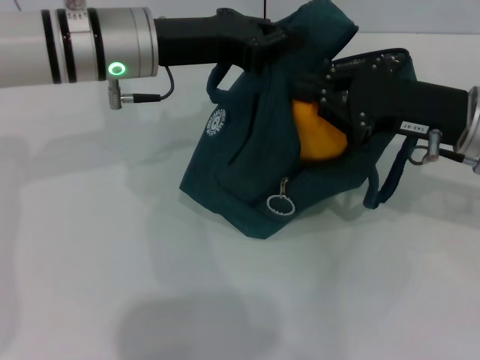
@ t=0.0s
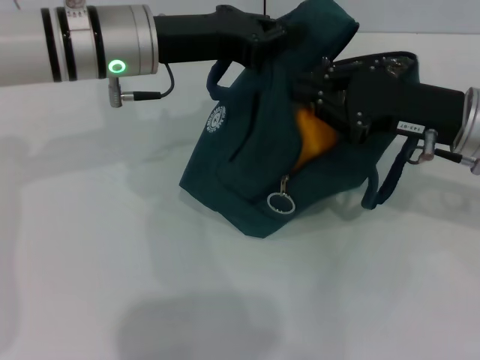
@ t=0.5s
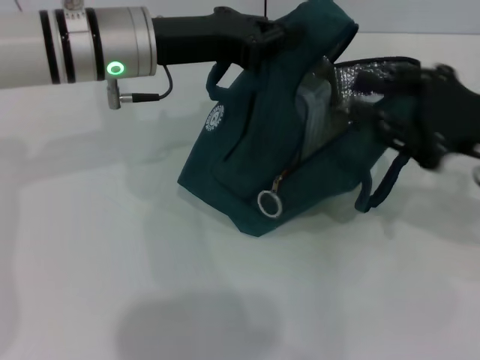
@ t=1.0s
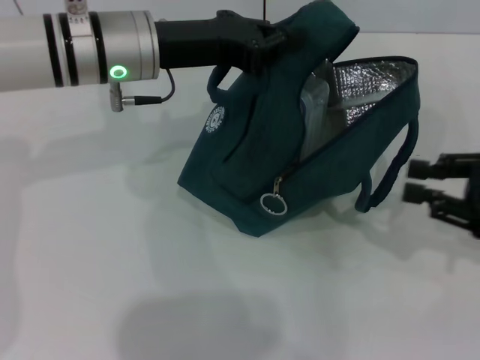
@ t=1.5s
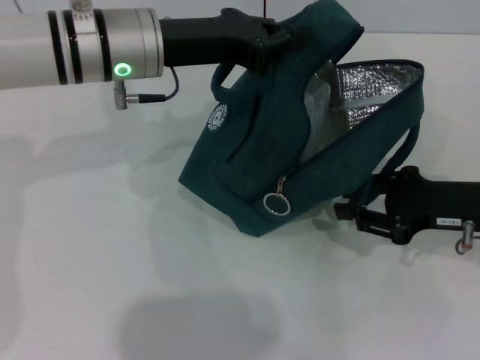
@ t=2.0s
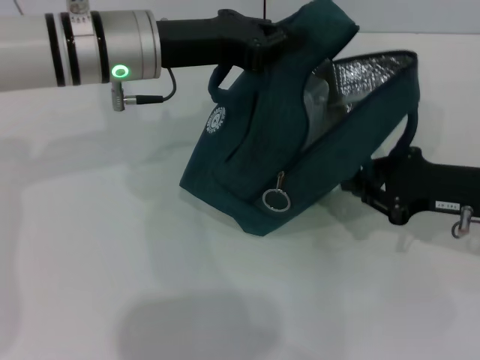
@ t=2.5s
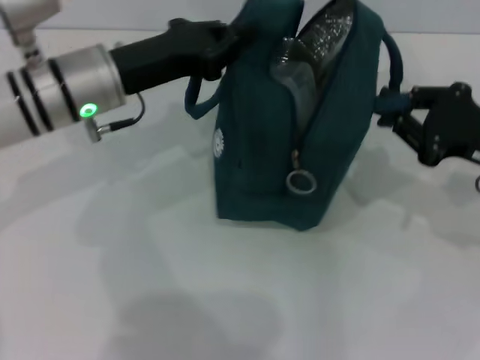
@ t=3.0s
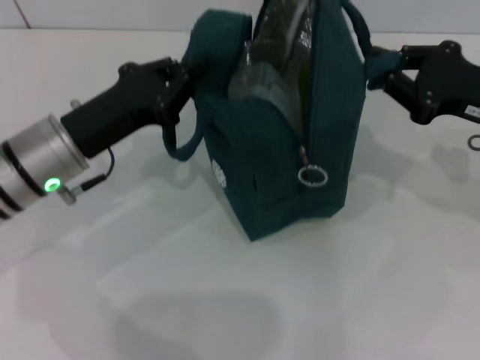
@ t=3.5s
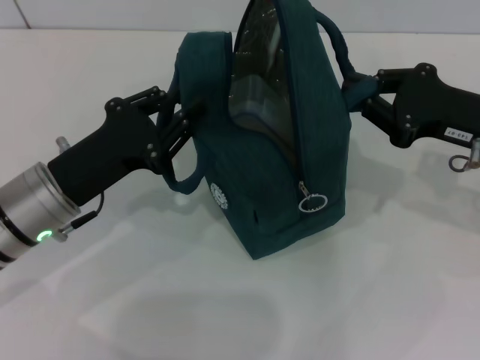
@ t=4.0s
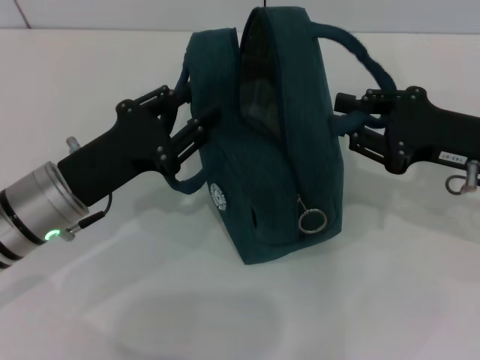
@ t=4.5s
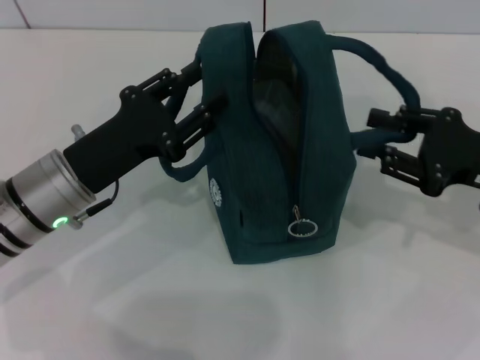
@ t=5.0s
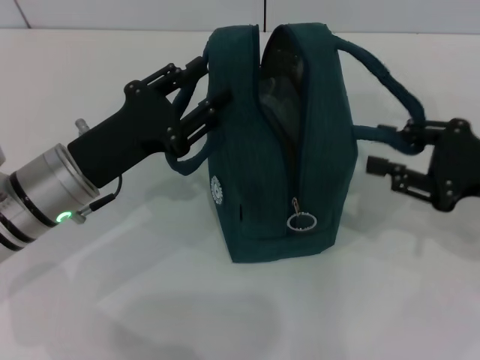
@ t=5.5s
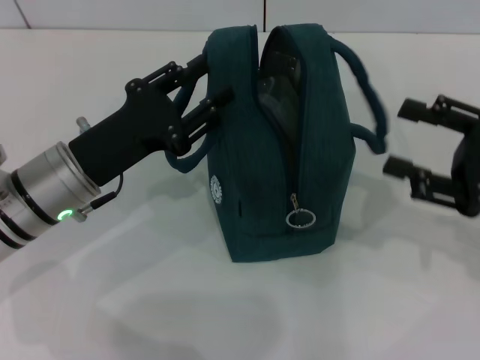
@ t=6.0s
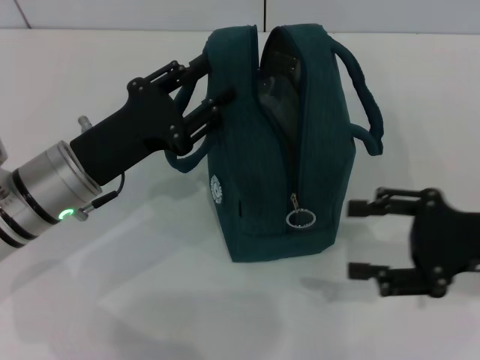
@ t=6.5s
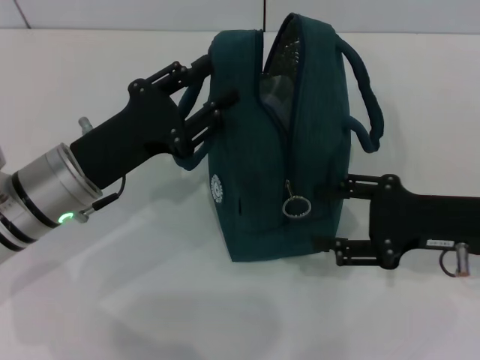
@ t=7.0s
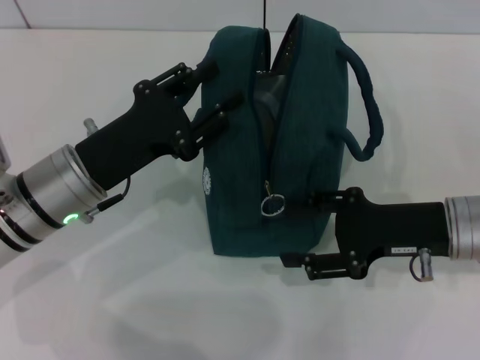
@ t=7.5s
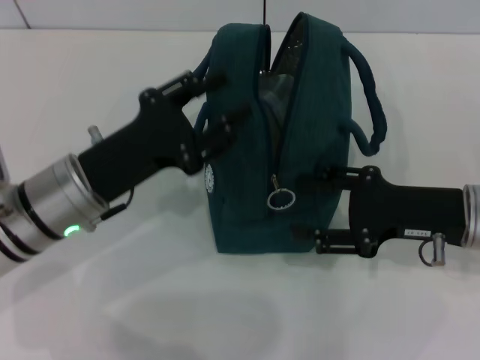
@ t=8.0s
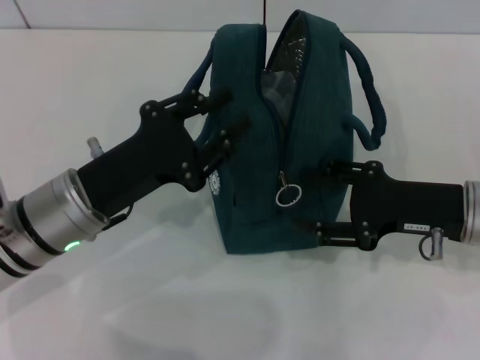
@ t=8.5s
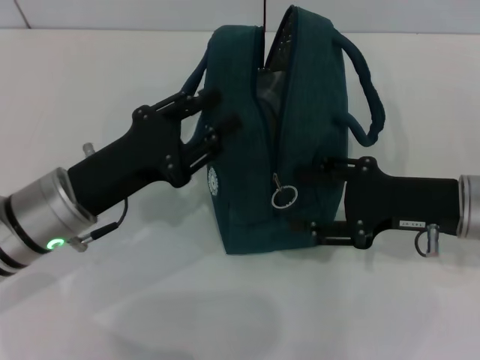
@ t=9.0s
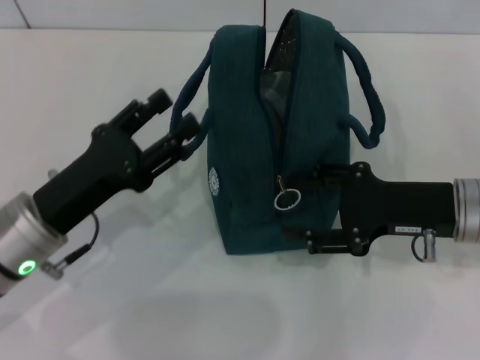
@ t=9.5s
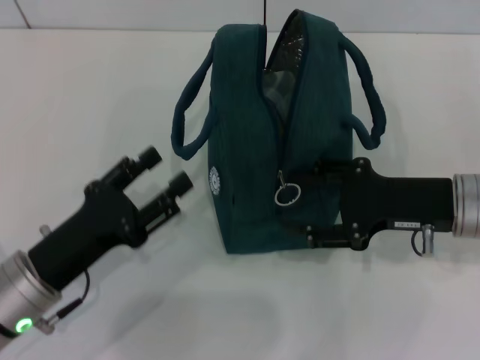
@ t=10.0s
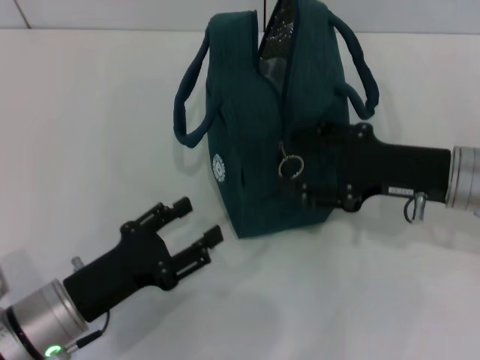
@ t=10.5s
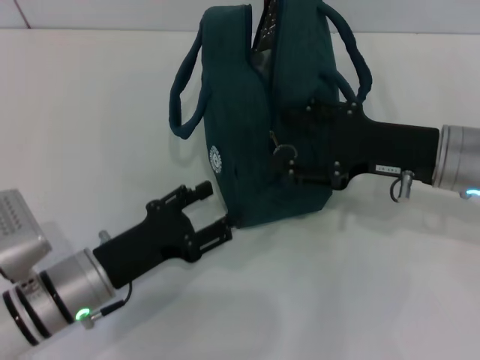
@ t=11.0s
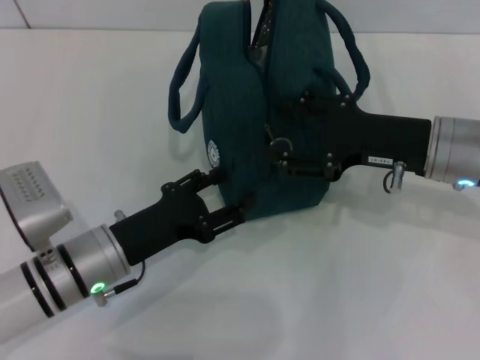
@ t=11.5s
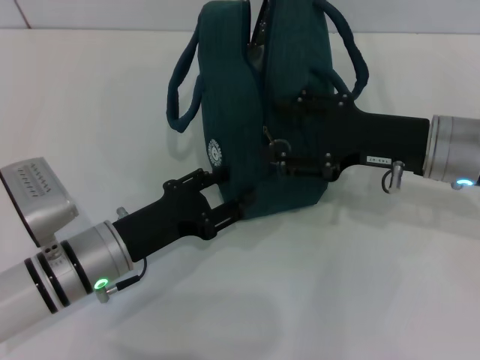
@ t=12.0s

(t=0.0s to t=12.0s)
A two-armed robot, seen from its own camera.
Step, t=1.5s - t=4.5s: Hold the lunch bag with your right hand.
t=0.0s - t=2.0s: The right gripper travels downward by about 5 cm.
t=2.0s - t=4.0s: The left gripper shifts roughly 15 cm backward, downward and to the left.
t=4.0s - t=6.0s: The right gripper shifts approximately 5 cm backward, and opens its fingers. The left gripper opens.
t=6.0s - t=8.0s: The right gripper shifts about 5 cm to the left.
t=8.0s - t=10.0s: The left gripper travels backward by approximately 10 cm.
t=10.0s - t=12.0s: The left gripper goes approximately 5 cm forward.

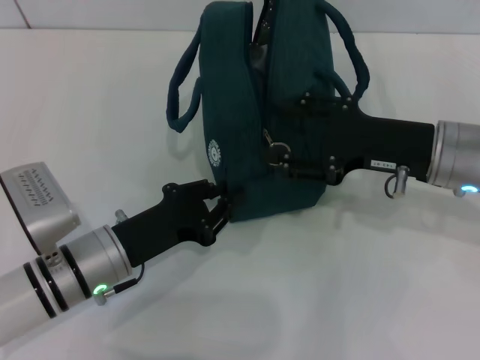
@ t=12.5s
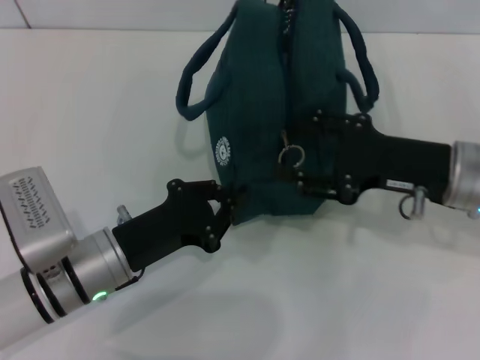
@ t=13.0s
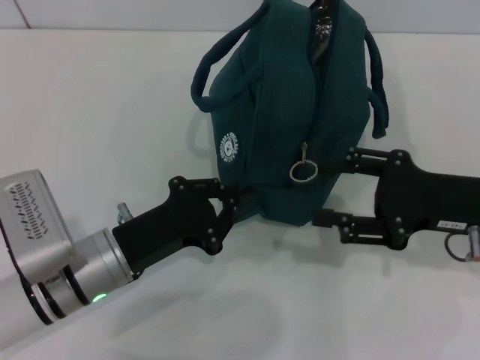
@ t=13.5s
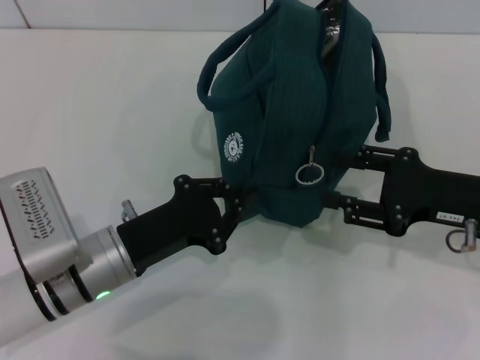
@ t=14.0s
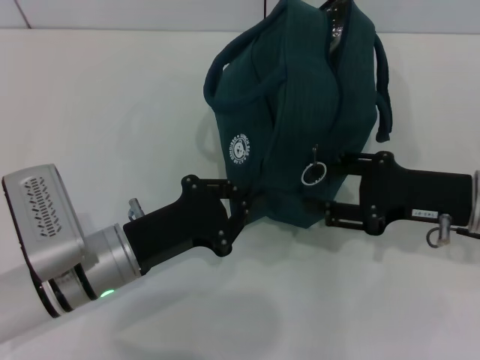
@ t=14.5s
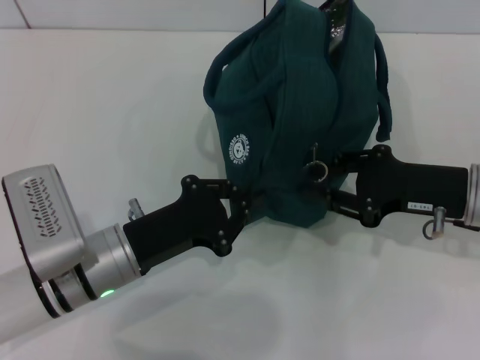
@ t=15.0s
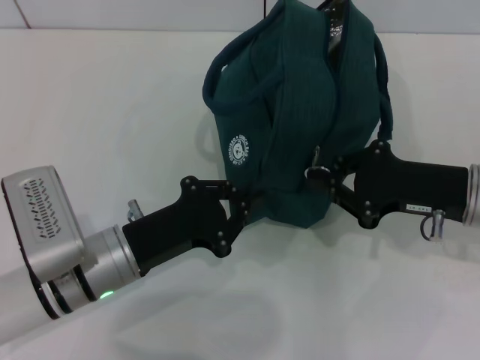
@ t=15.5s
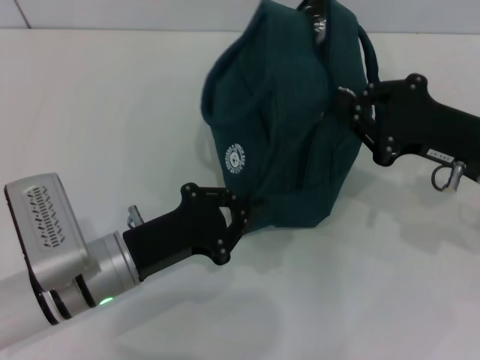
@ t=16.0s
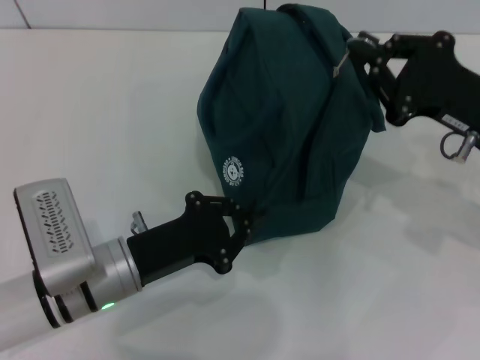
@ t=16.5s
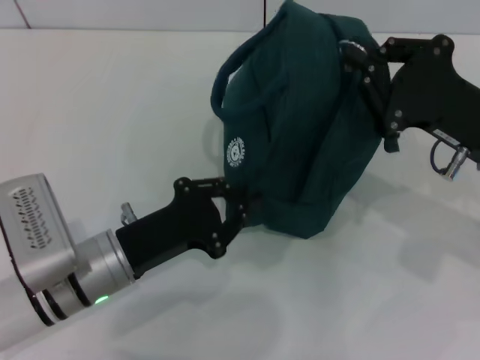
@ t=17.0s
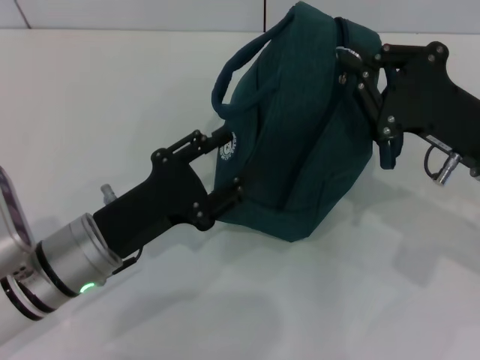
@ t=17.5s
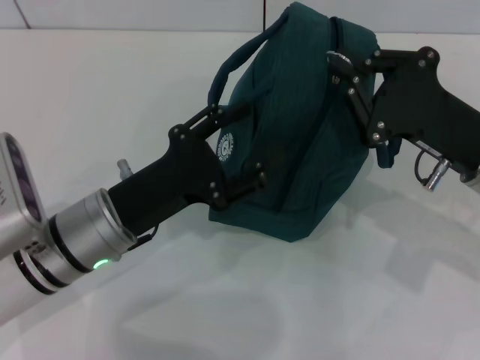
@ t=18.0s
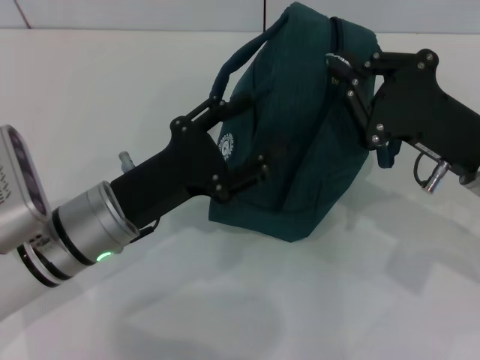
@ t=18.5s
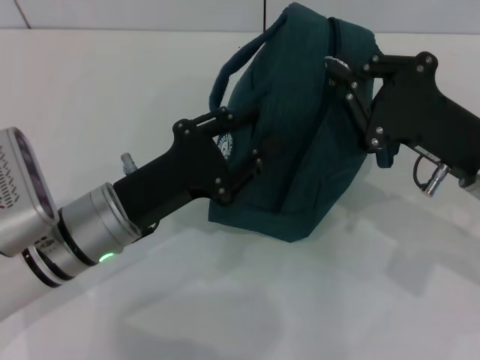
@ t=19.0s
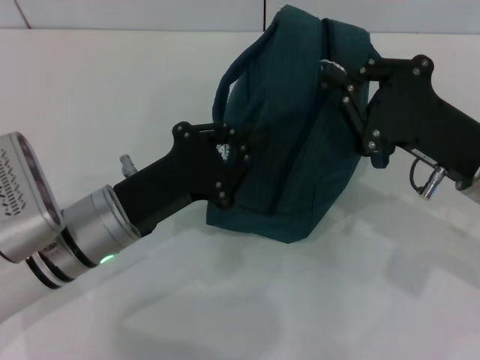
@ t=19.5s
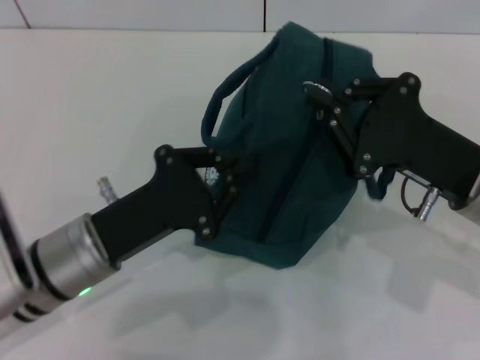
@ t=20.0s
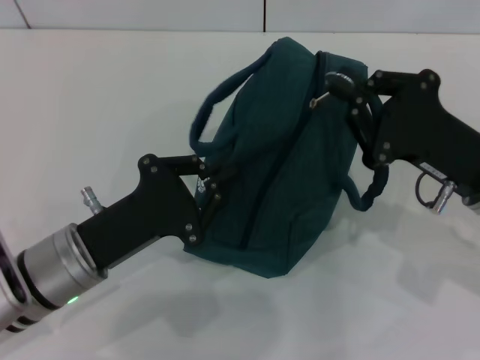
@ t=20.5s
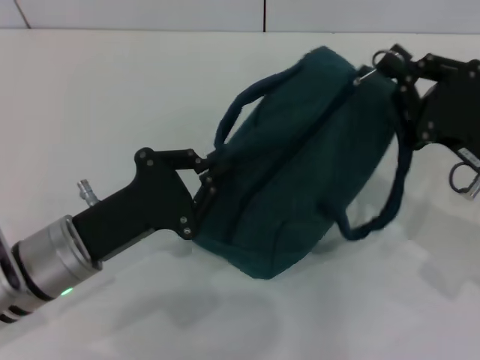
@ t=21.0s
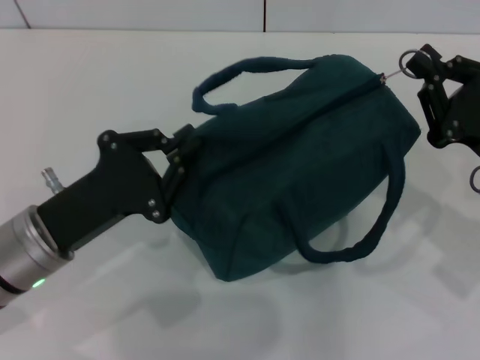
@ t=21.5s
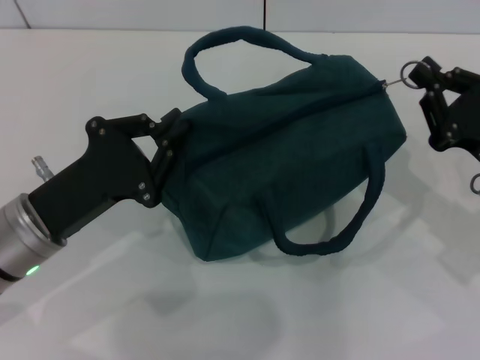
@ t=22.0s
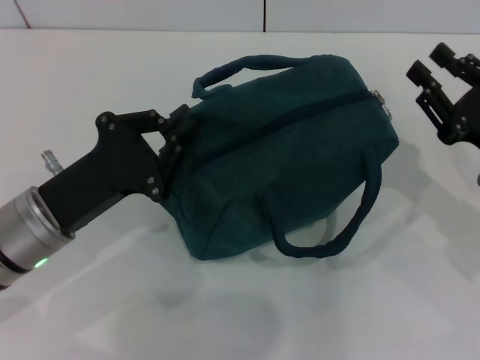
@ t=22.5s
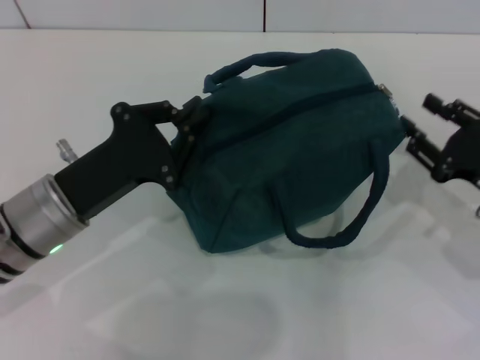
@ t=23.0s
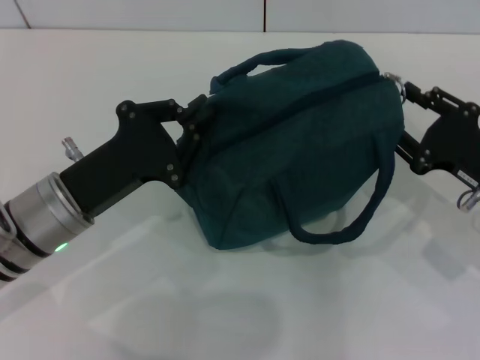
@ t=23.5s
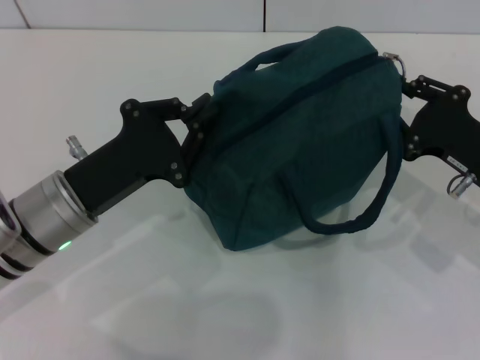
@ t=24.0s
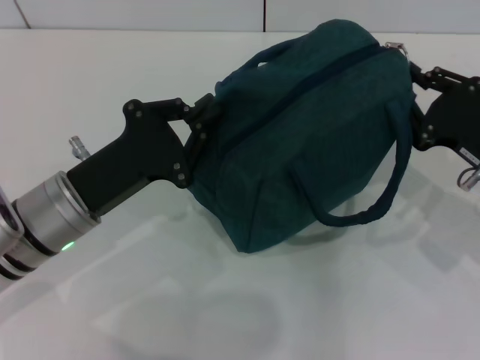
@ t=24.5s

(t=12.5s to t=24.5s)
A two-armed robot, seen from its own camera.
t=12.5s - t=14.5s: The right gripper moves approximately 5 cm. The left gripper closes its fingers.
t=14.5s - t=16.5s: The right gripper closes.
t=16.5s - t=18.5s: The left gripper opens its fingers.
t=18.5s - t=20.5s: The left gripper closes.
t=20.5s - t=22.5s: The right gripper moves to the right, about 5 cm.
t=22.5s - t=24.5s: The grippers move only a little.

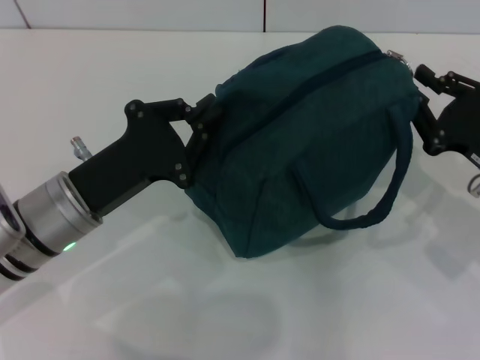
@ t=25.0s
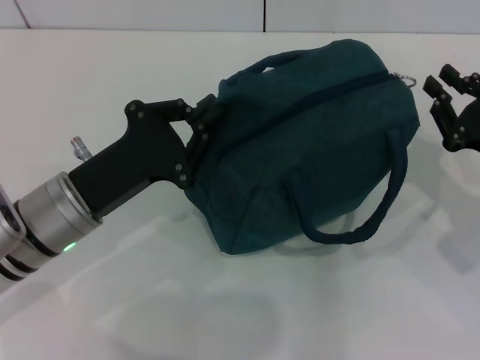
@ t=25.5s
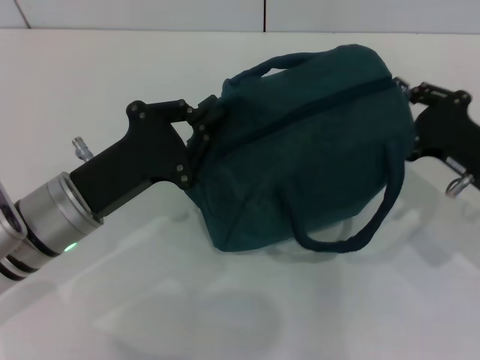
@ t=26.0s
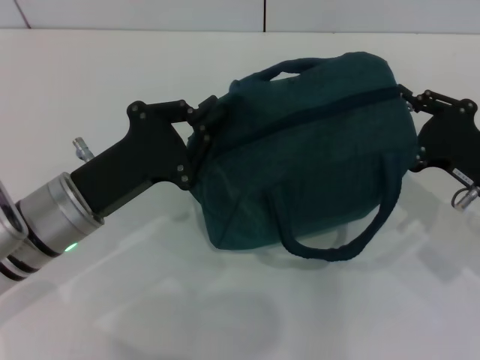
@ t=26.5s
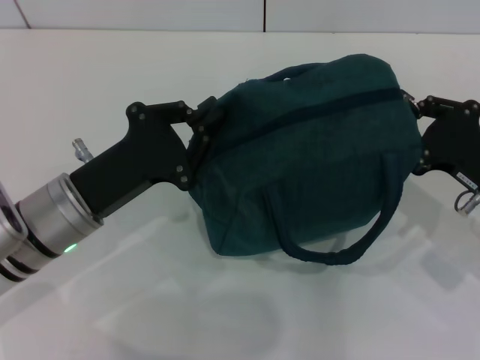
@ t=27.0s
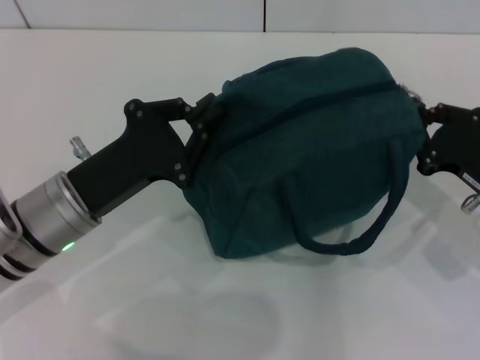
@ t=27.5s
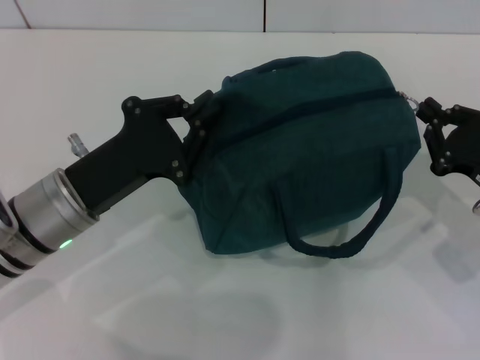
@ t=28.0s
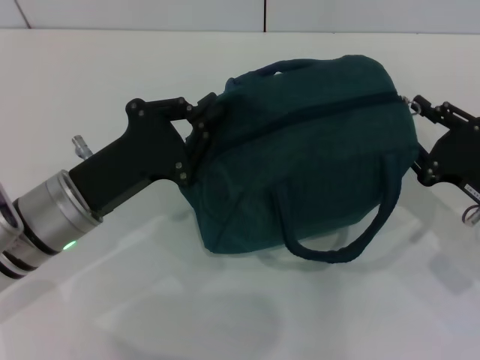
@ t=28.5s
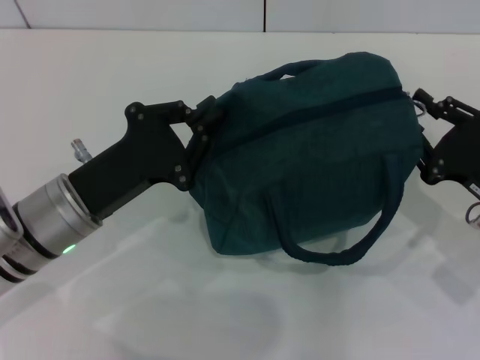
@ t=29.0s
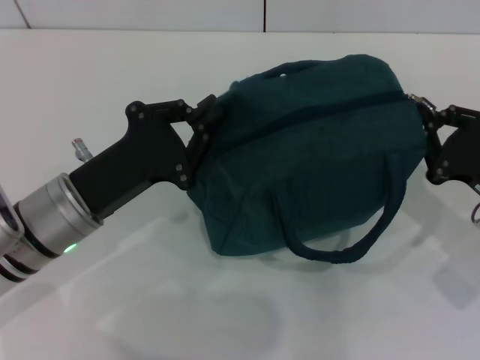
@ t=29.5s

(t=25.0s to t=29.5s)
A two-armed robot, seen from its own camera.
t=25.0s - t=29.5s: The grippers make only small movements.
